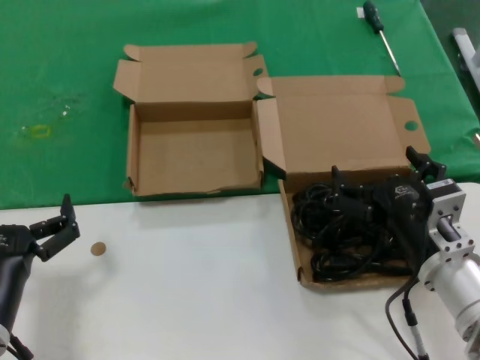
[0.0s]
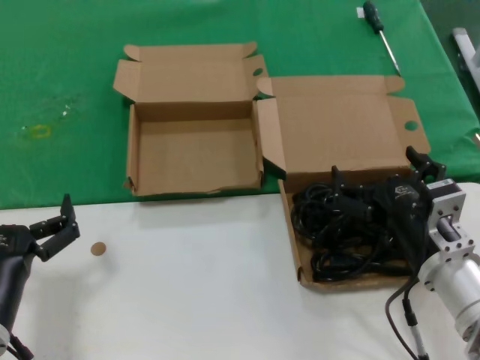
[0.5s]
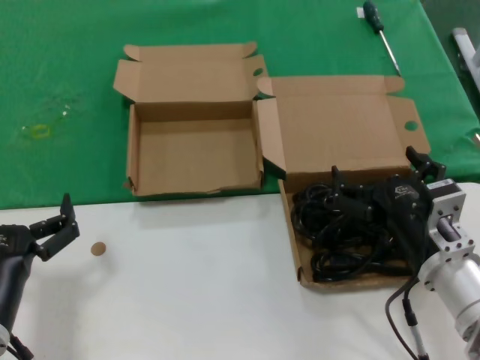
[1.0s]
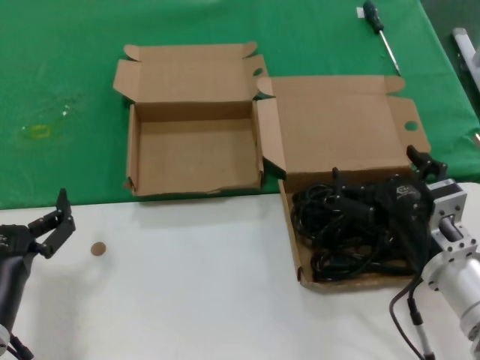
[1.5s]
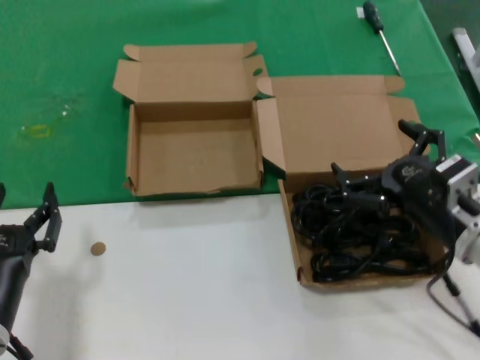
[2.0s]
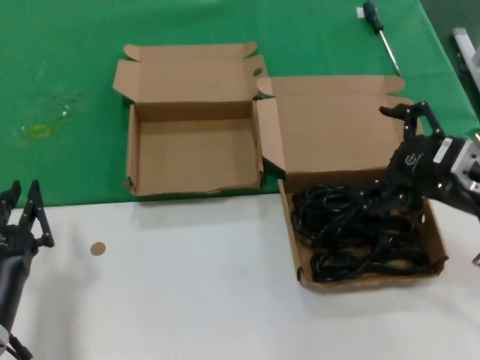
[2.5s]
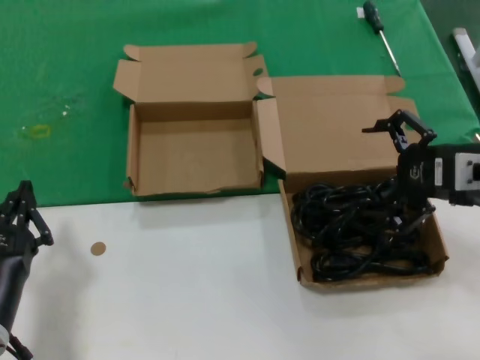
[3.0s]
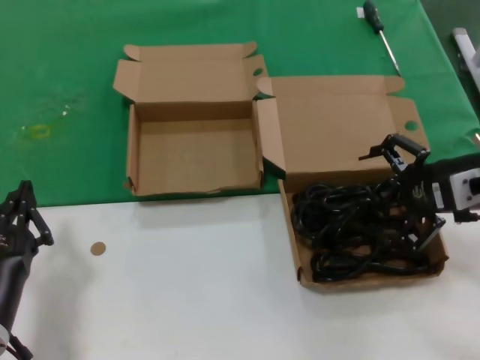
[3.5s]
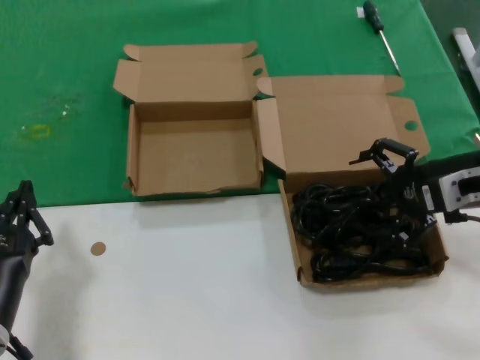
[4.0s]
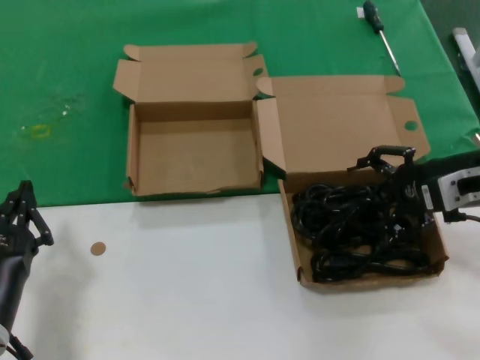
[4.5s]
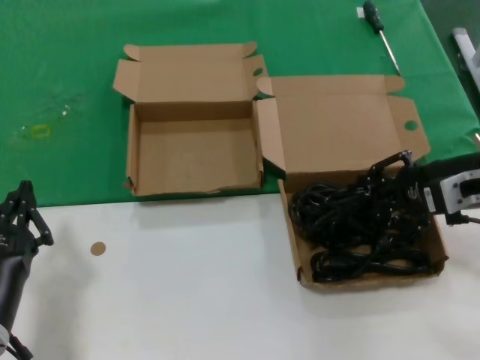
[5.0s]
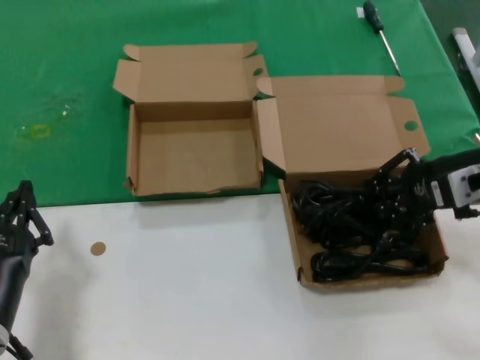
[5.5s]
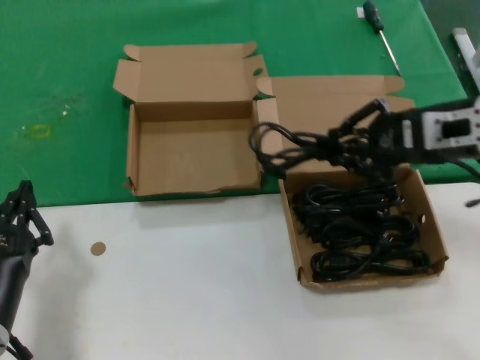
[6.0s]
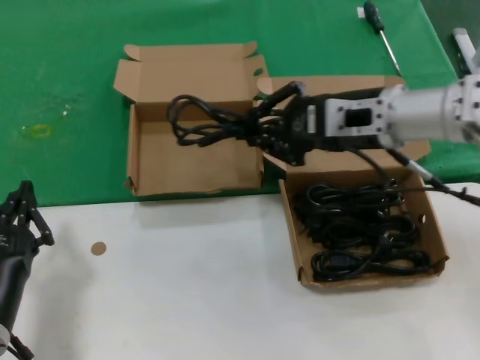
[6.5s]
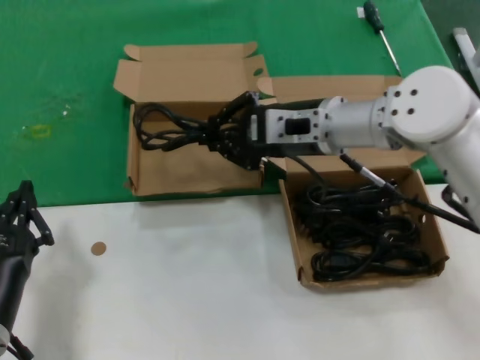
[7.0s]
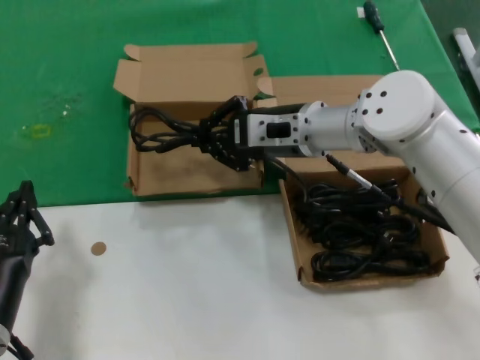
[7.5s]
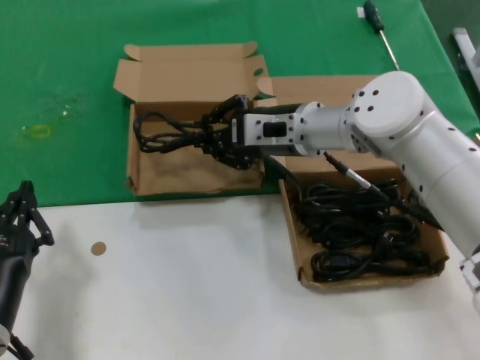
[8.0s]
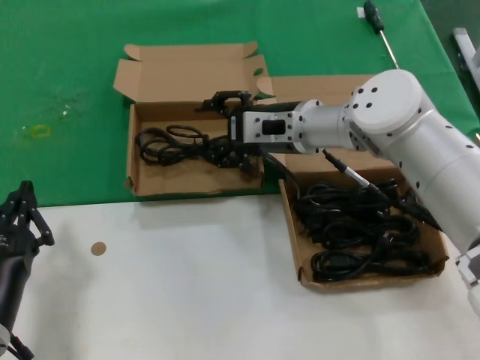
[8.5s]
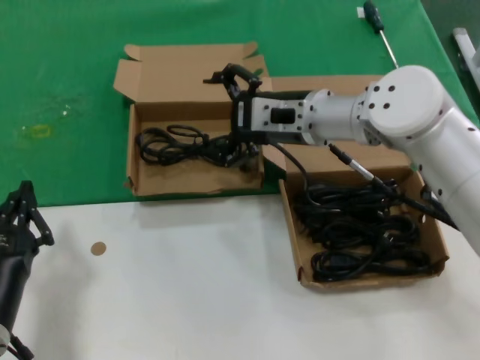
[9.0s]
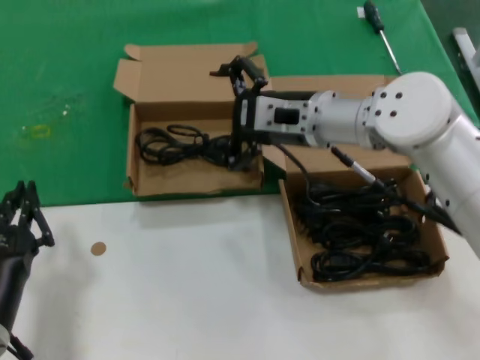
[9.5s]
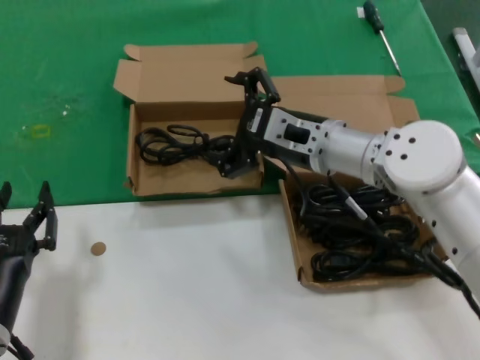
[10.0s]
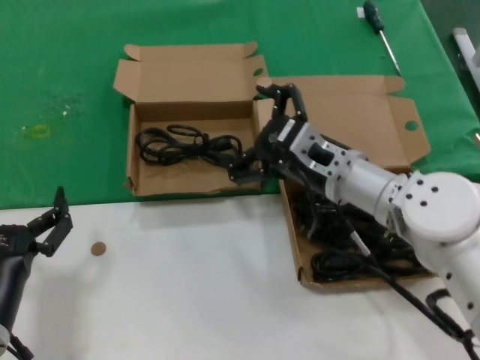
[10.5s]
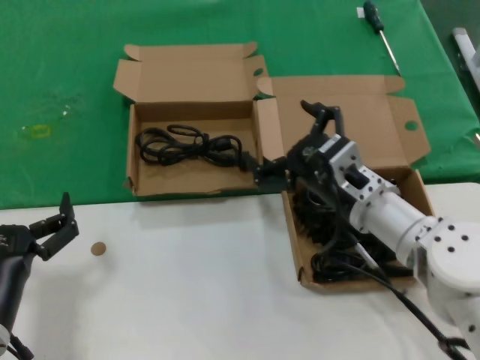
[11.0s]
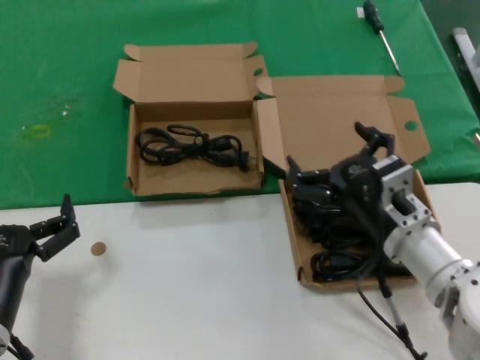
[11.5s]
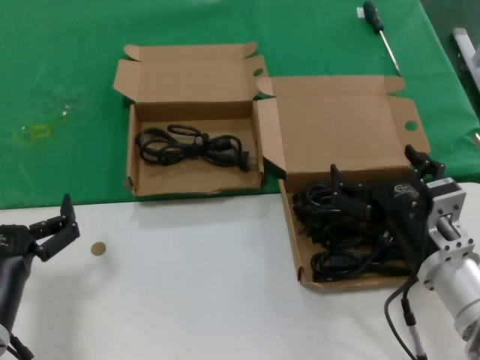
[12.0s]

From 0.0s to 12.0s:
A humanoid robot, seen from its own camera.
Task of the whole recording: take the parts from the box containing them and put them into an empty box.
Step, from 0.0s to 5.0s: Grasp the data cable.
Step, from 5.5s to 8.5s: Place the data cable in the another box.
From 0.0s to 2.0s: The right hand shifts by approximately 5 cm.
From 2.0s to 4.0s: The right hand heads upward, forward and to the right, covering some 15 cm.
From 4.0s to 6.0s: The right hand moves upward, some 5 cm.
From 6.0s to 8.0s: The right hand is displaced to the left and forward by about 20 cm.
From 8.0s to 10.0s: The right hand shifts by about 5 cm.
From 10.0s to 12.0s: The right hand travels backward, downward and to the right by roughly 20 cm.

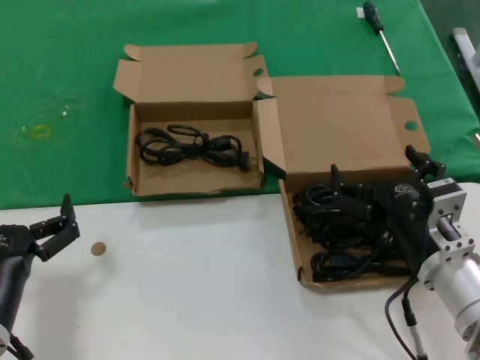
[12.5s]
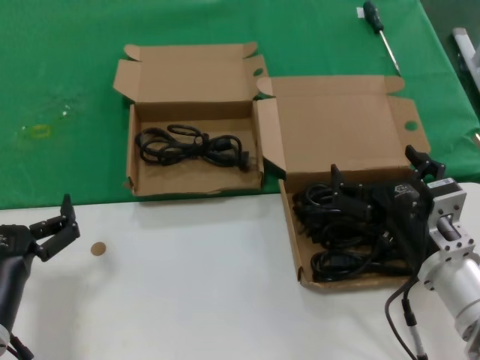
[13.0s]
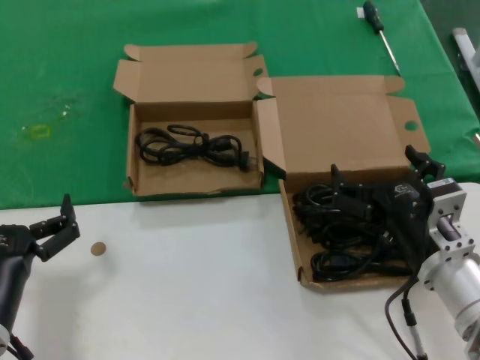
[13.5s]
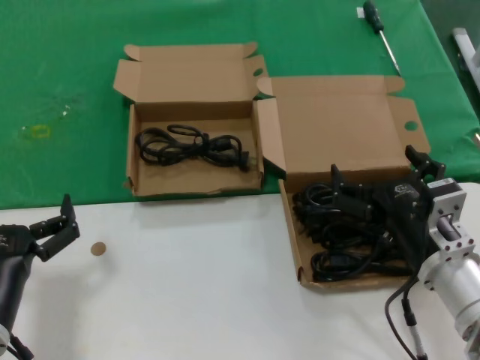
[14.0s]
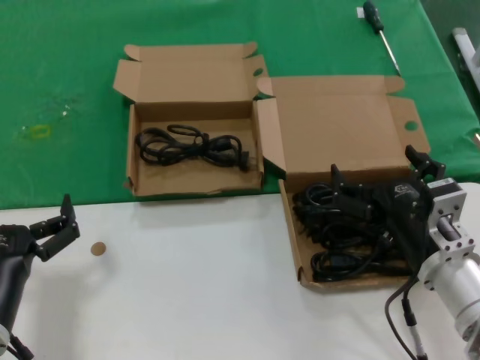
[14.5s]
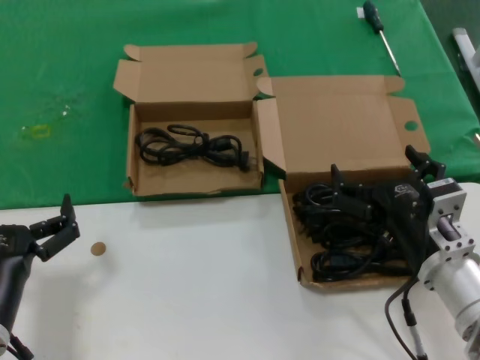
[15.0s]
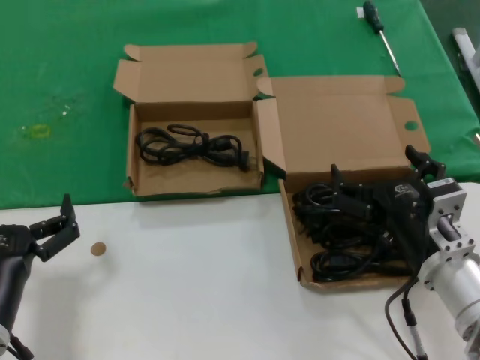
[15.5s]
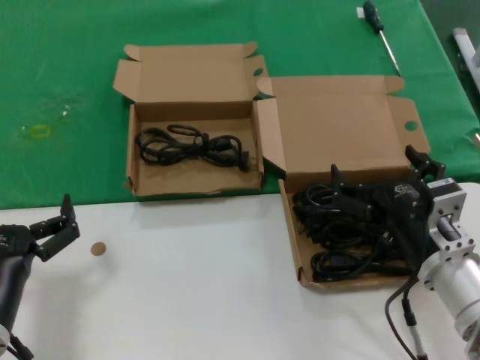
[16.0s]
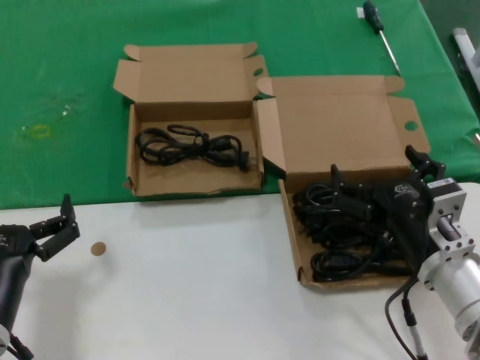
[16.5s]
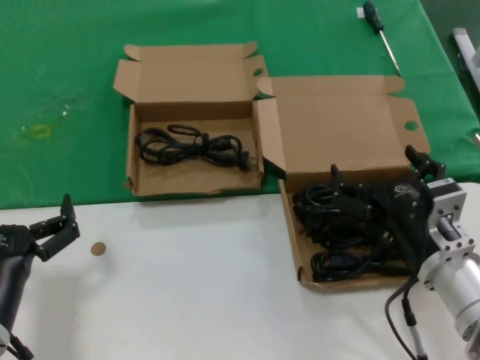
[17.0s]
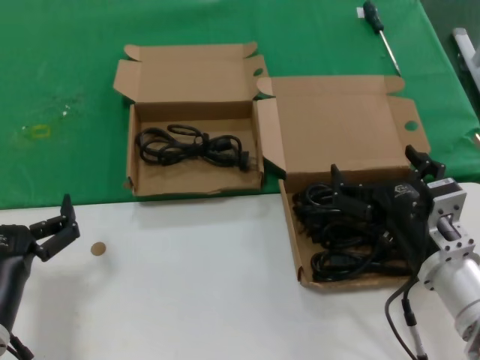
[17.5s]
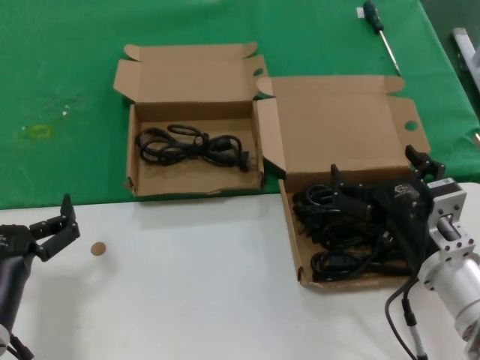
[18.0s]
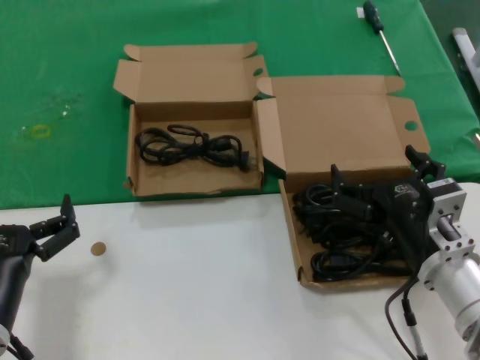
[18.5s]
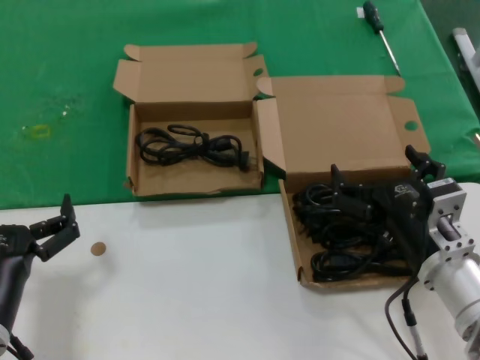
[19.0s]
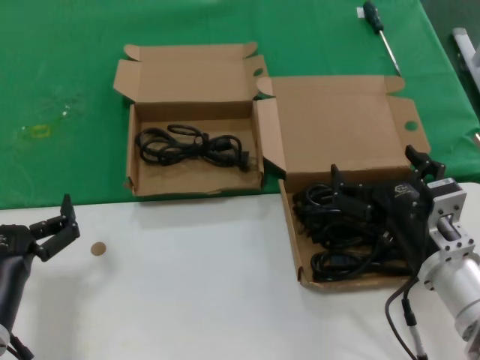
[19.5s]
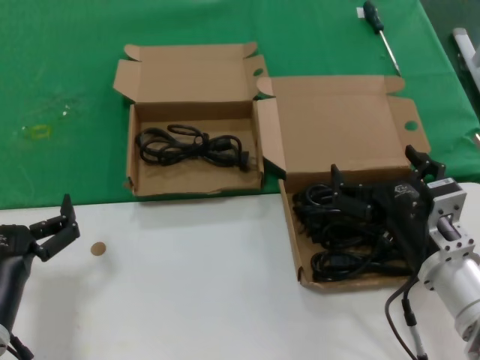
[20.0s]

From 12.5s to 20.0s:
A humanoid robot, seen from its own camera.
Task of the whole recording: take the parts from the box containing them and put them into an empty box.
From 12.5s to 20.0s: Both hands stay about where they are.

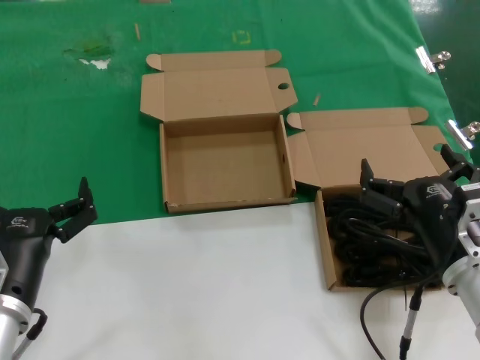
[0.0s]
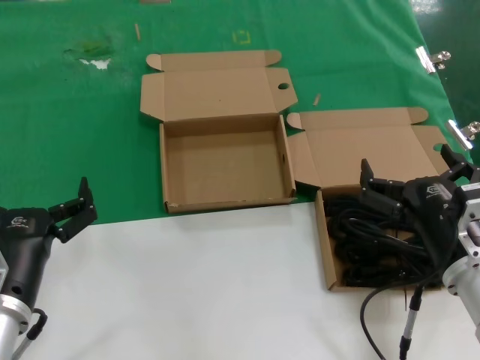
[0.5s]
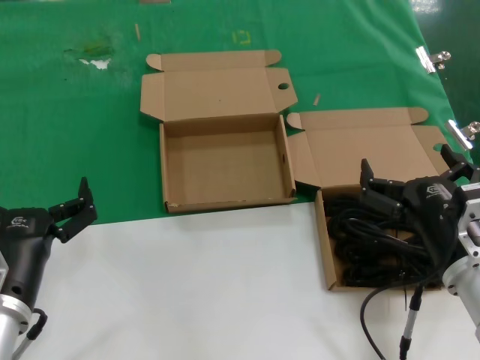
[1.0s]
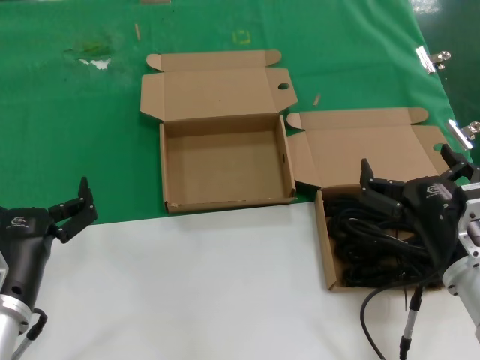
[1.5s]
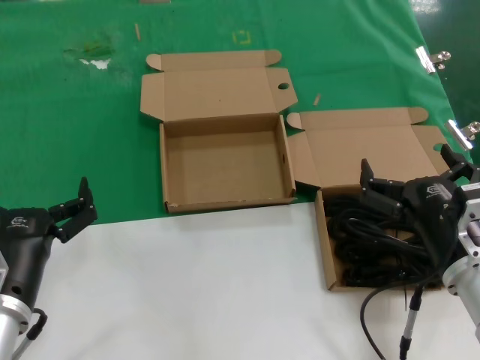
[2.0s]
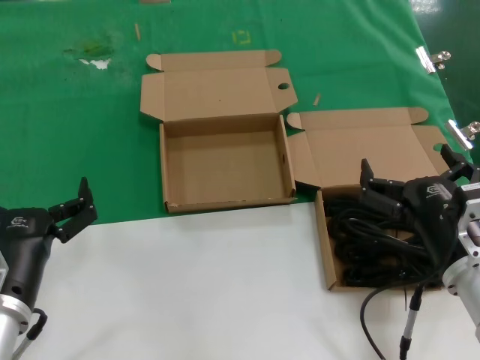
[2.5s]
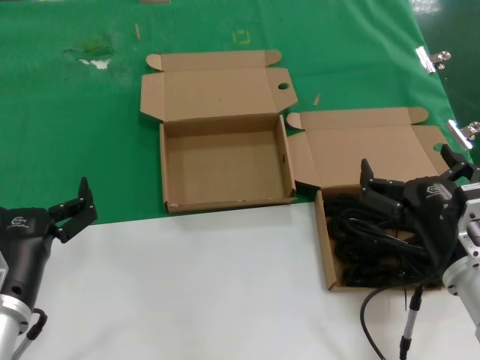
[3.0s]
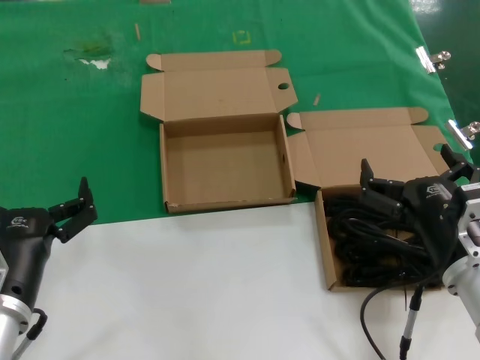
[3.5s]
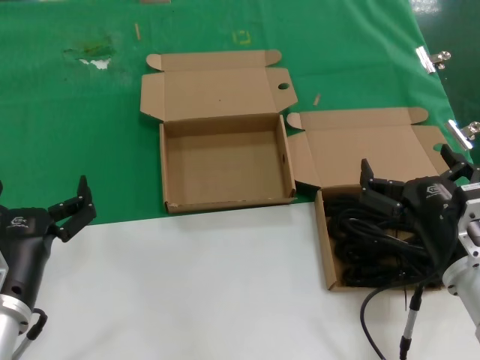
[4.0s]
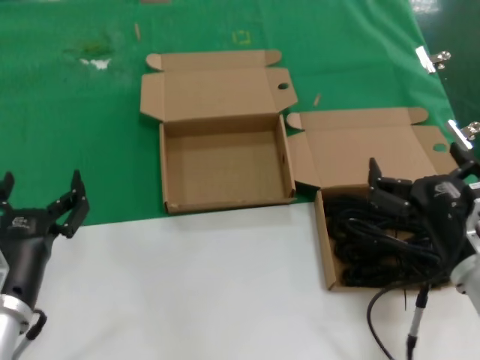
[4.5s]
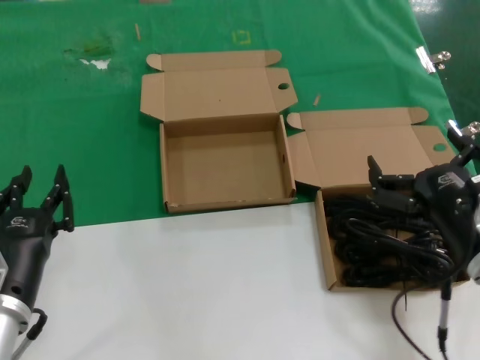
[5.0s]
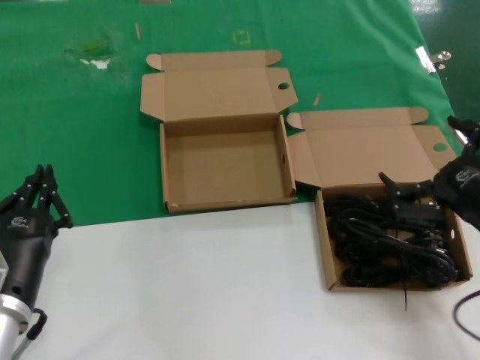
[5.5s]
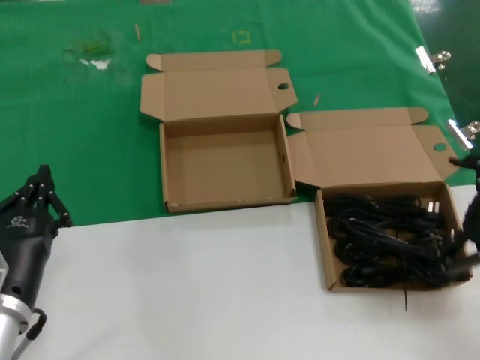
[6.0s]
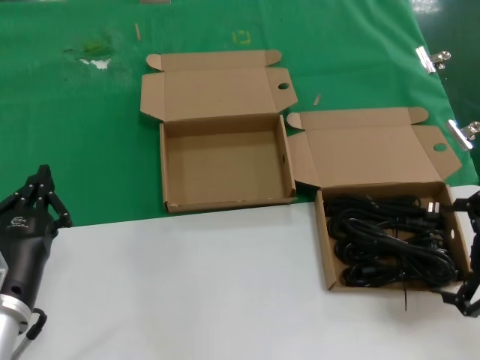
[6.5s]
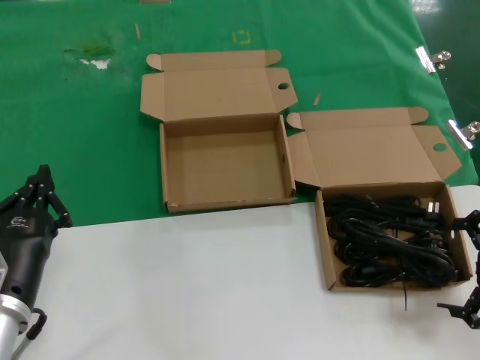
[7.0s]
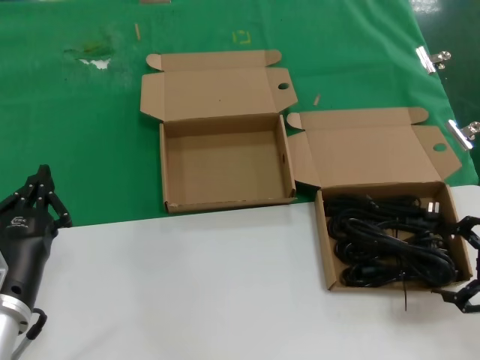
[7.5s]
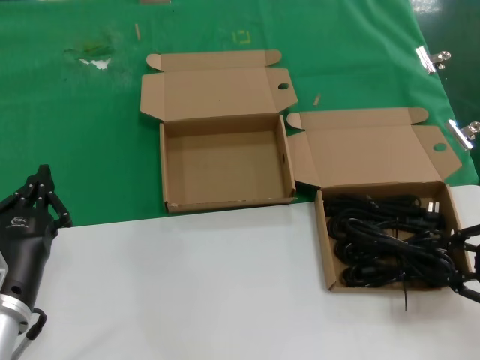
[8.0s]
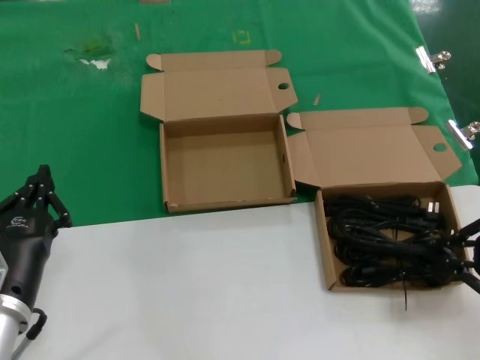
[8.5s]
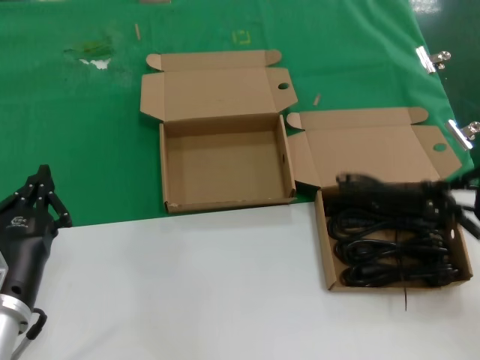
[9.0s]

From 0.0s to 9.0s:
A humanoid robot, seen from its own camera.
Task of the whole recording: take the parts from the box containing them and put them into an empty box.
Step, from 0.0s to 8.0s: Grasp the data cable.
From 0.0s to 4.5s: Both hands stay about where they are.
From 4.5s to 7.0s: The right hand goes some 15 cm to the right and upward.
From 7.0s to 9.0s: The right hand changes place by some 5 cm.
